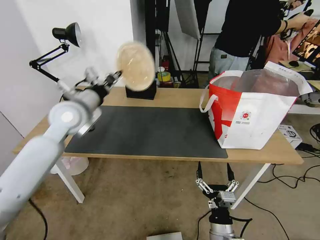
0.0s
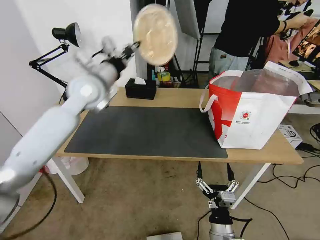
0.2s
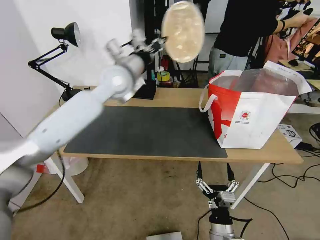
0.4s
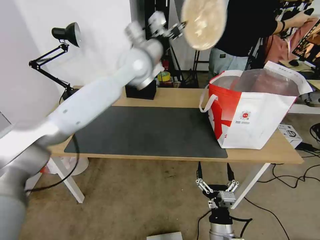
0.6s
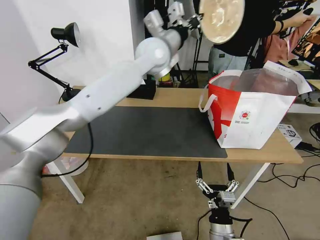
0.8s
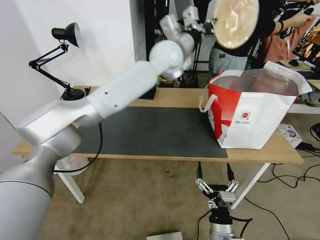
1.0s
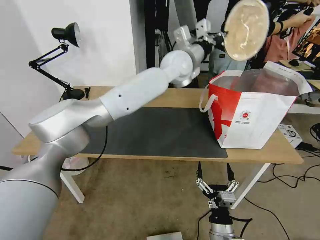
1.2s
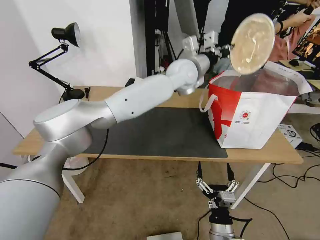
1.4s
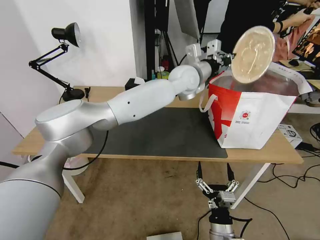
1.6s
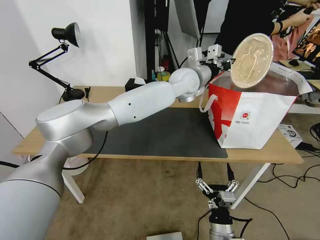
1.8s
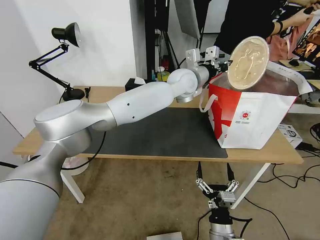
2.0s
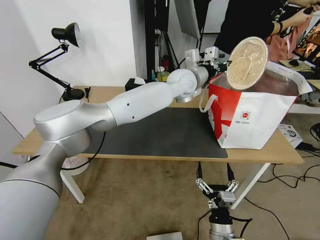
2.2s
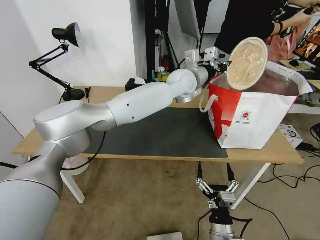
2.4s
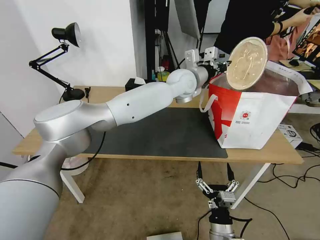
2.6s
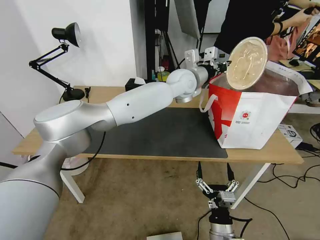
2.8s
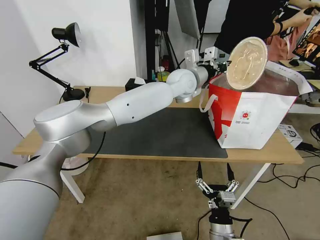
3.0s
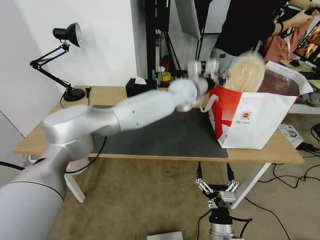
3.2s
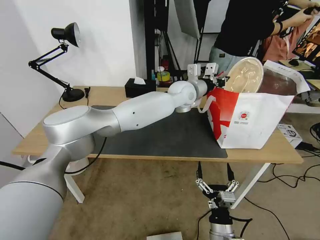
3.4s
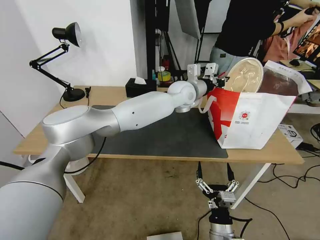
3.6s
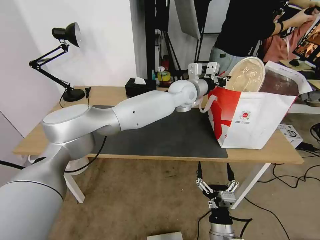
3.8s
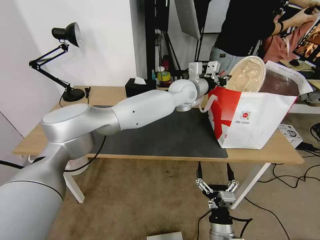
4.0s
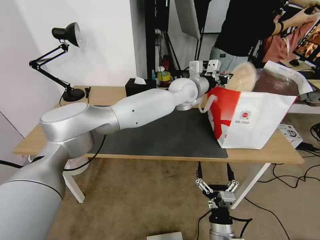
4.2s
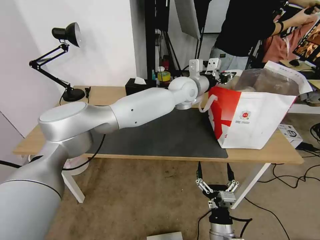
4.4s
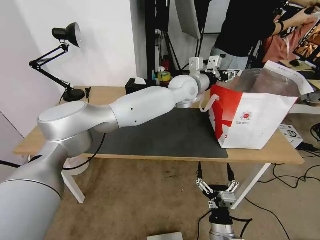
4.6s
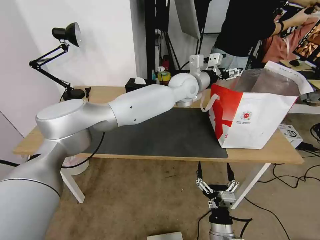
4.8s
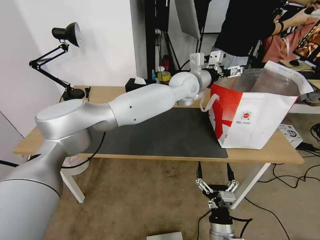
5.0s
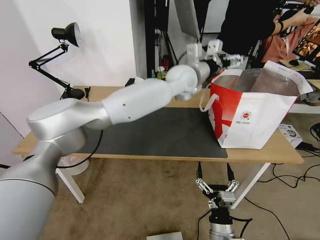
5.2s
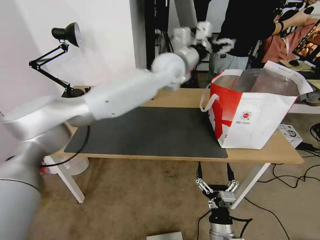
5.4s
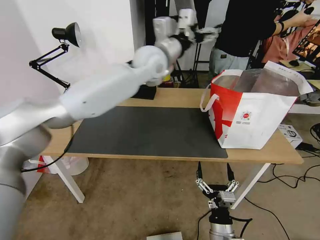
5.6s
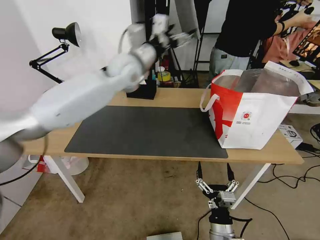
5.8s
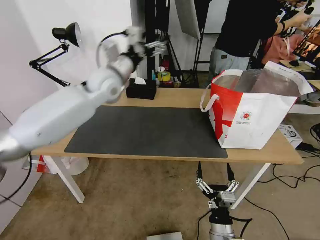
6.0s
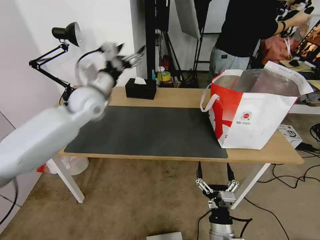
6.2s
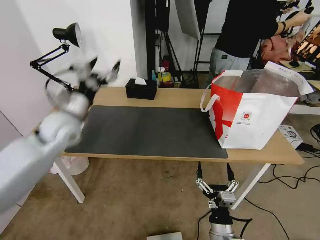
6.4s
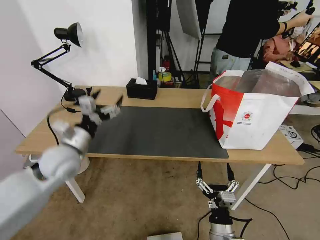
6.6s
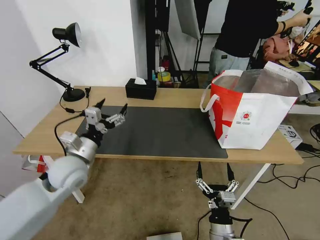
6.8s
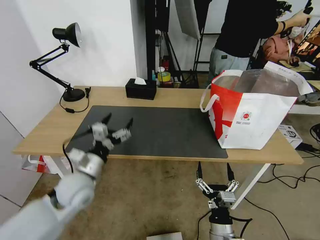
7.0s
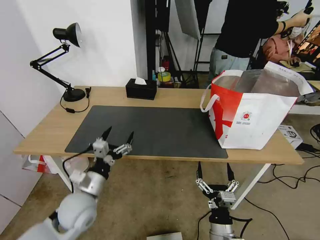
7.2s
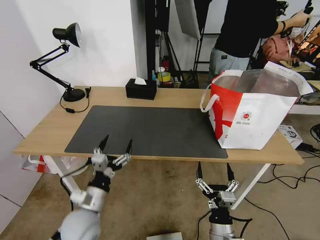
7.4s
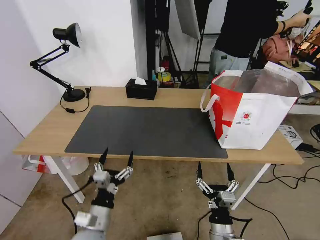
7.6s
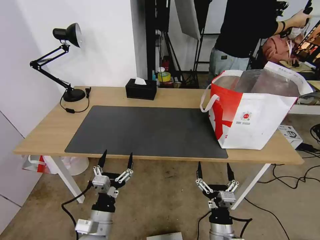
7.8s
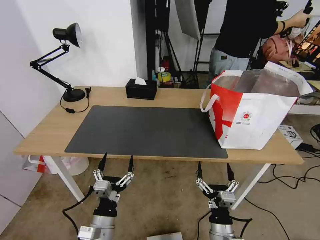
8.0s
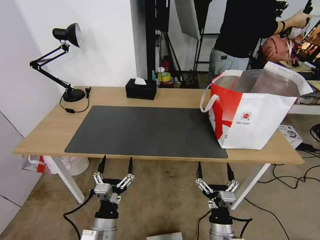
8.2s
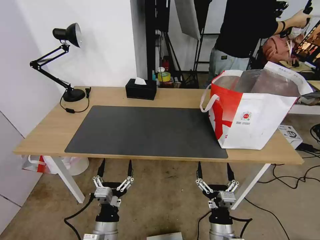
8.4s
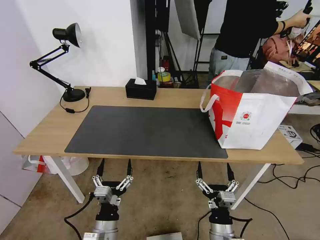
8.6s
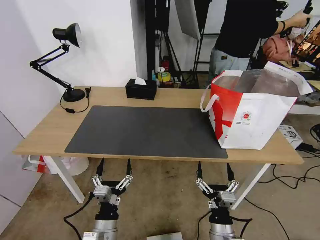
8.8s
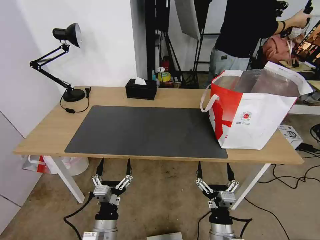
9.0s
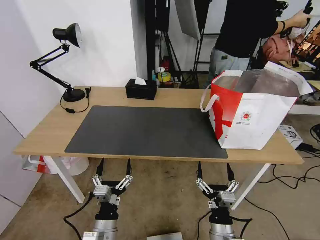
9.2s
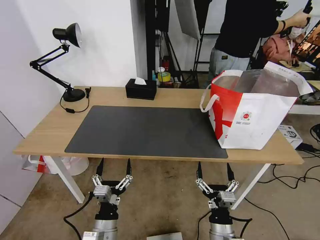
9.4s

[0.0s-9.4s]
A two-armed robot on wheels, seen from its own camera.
Task of the whole recording: Pick up the trash from the table and place it into the takeout bag.
0.0s to 1.6s: The left gripper goes about 30 cm to the right.
1.6s to 3.2s: The left gripper goes roughly 5 cm downward.
3.2s to 4.8s: The left gripper opens.
4.8s to 6.2s: The left gripper shifts approximately 30 cm to the left.
6.2s to 7.8s: The left gripper heads backward and downward, covering roughly 40 cm.
7.8s to 9.4s: The grippers stay close to where they were, moving slightly.
